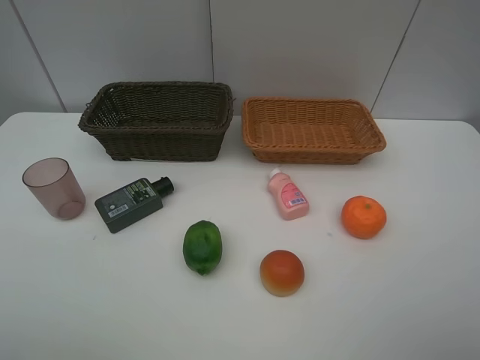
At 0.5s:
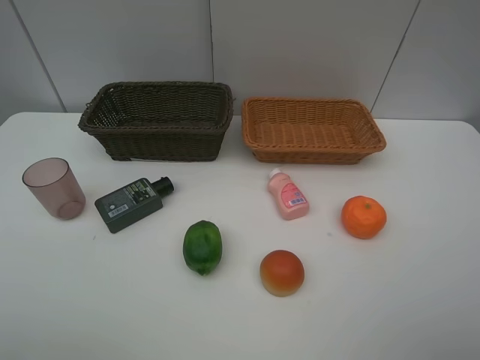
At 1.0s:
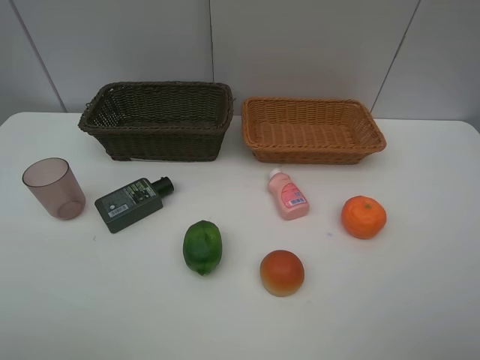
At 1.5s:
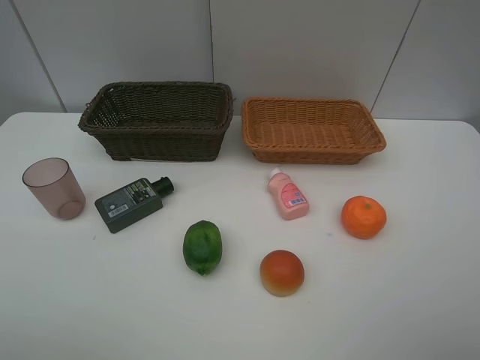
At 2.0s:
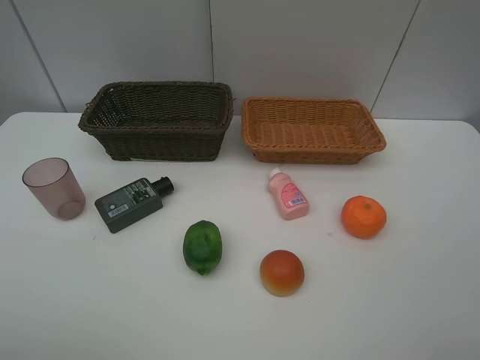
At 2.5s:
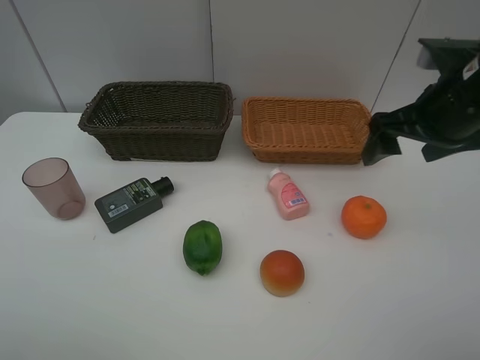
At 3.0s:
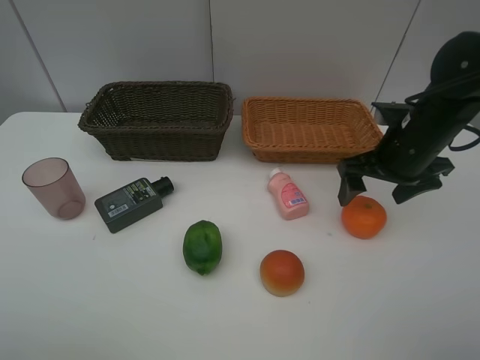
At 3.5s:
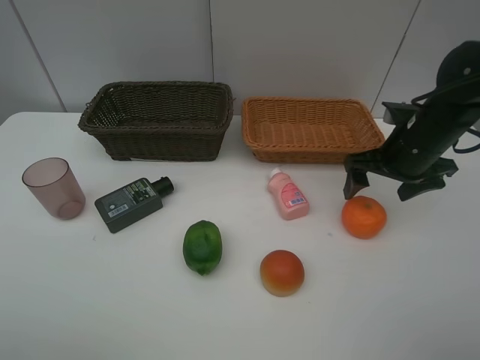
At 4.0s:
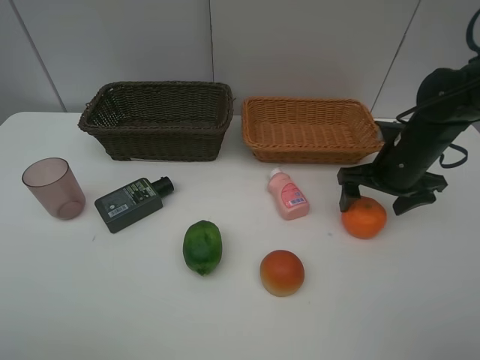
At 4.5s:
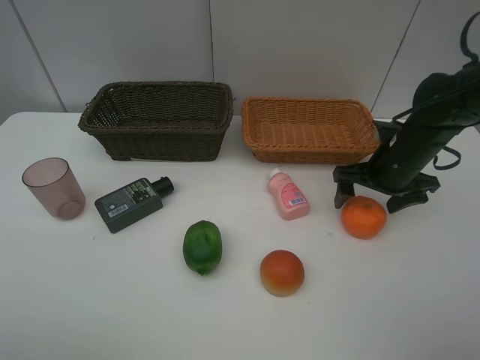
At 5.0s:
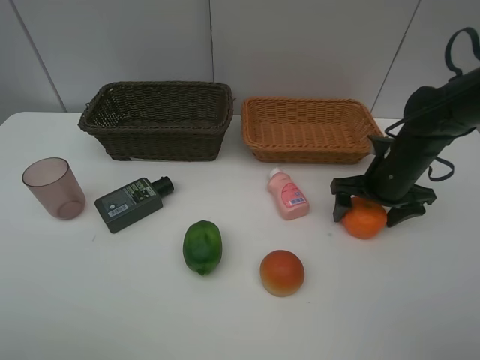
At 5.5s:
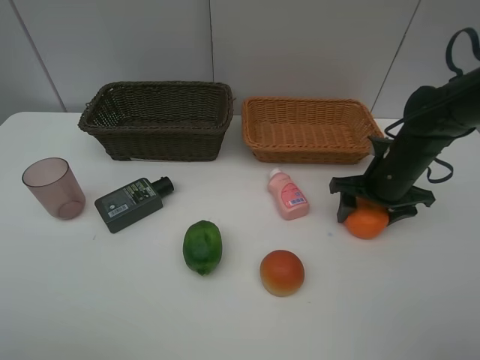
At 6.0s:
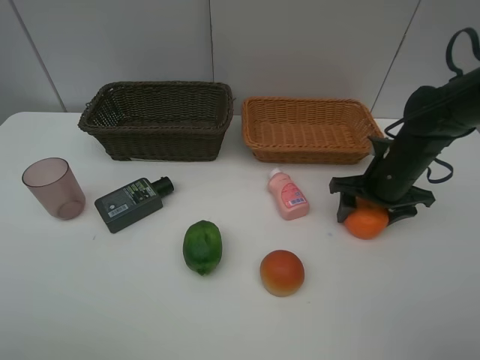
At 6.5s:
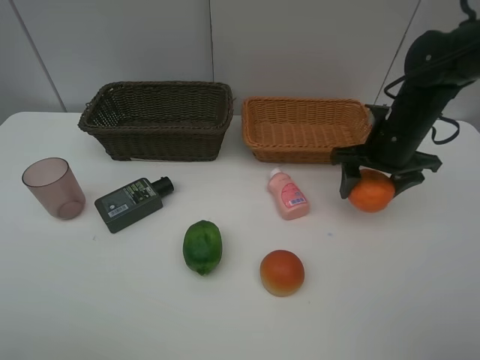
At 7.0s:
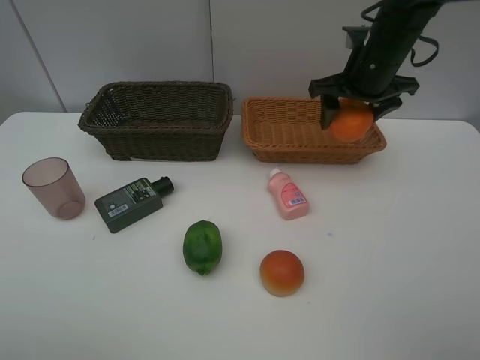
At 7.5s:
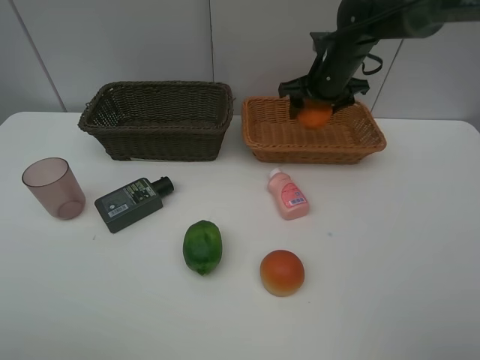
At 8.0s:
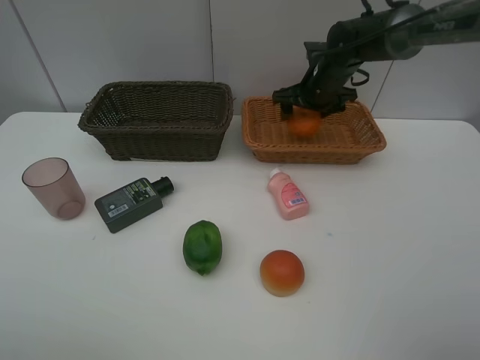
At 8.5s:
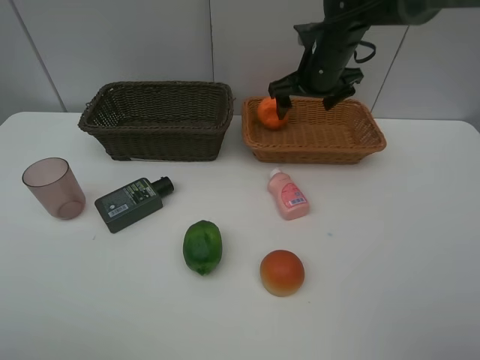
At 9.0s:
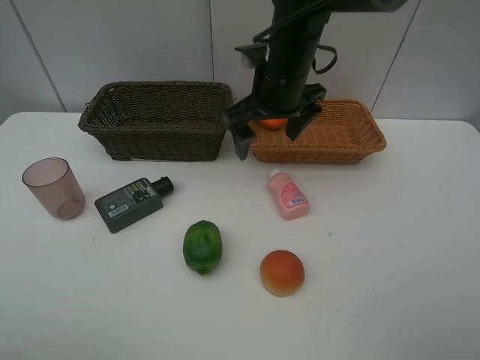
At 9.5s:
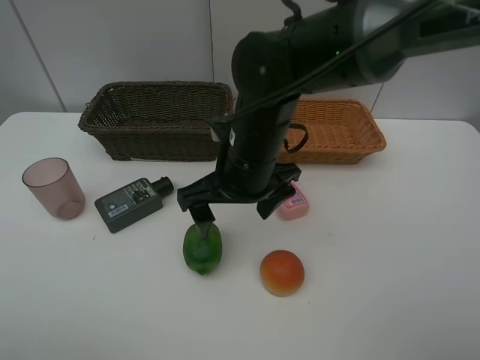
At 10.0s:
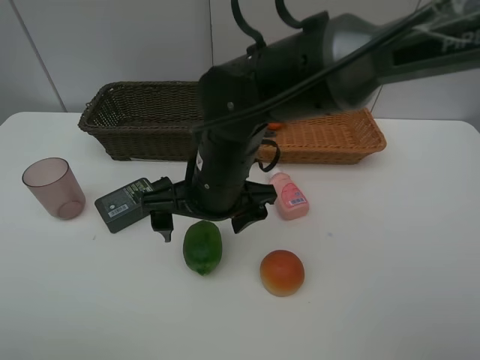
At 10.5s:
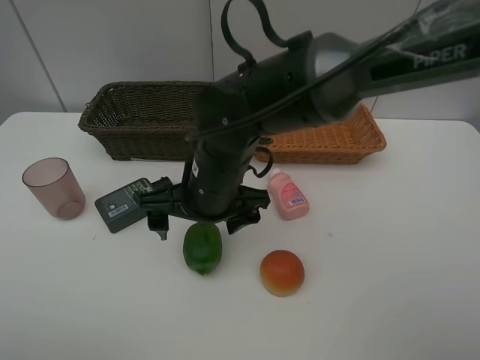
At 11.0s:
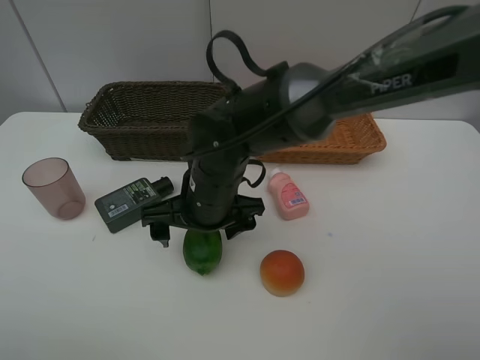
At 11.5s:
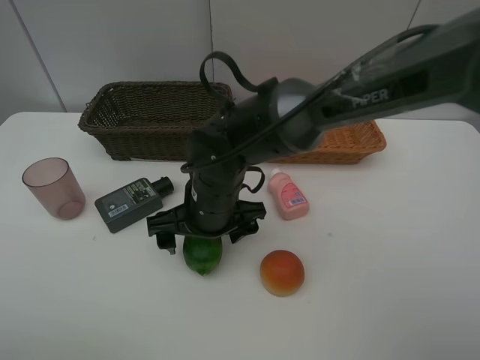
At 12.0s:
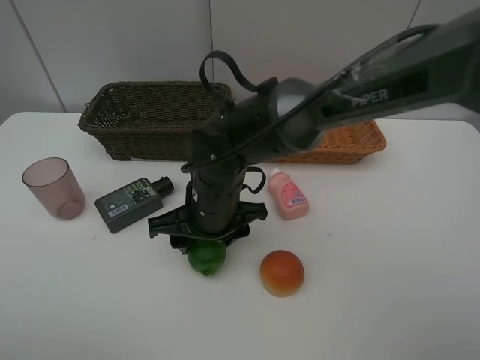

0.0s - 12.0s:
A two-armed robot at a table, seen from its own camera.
Task of the whole recording: place multiple objects separately in different baskets.
2.0s - 4.0s: The right gripper travels downward and forward by about 25 cm.
4.0s - 6.0s: The right gripper closes its fingers.
6.0s - 8.0s: The right gripper travels forward and to the left by roughly 20 cm.
8.0s - 10.0s: The right gripper travels backward and to the left by roughly 30 cm.
10.0s - 12.0s: The right gripper shifts some 5 cm downward, and closes.

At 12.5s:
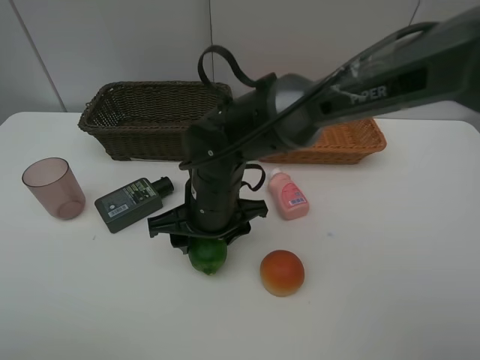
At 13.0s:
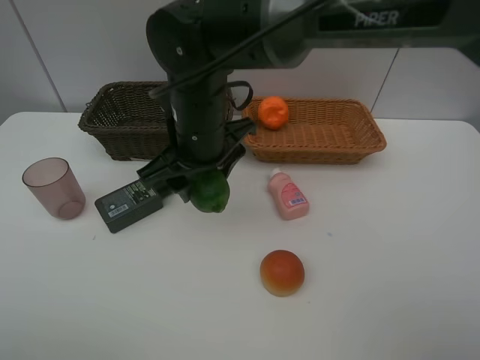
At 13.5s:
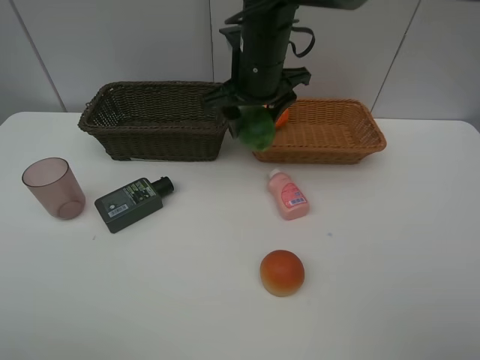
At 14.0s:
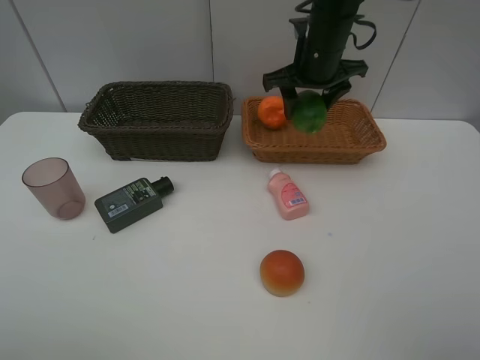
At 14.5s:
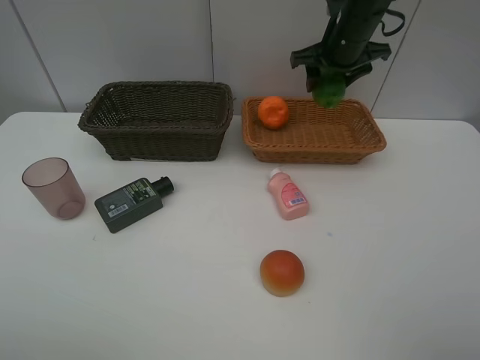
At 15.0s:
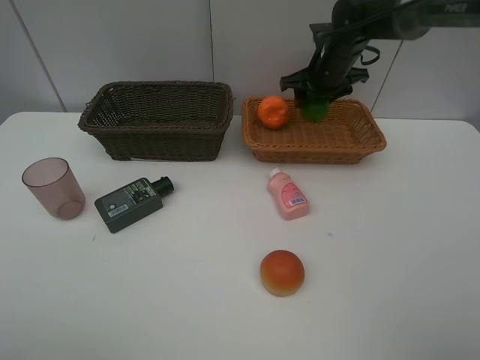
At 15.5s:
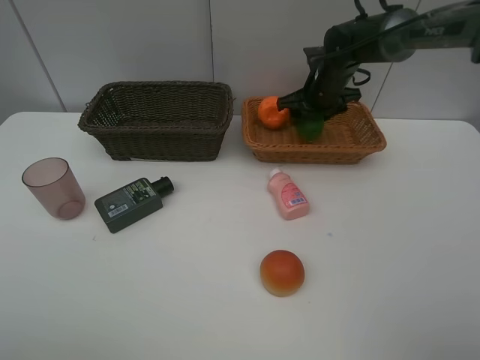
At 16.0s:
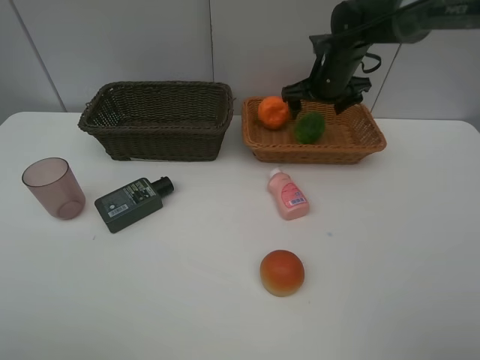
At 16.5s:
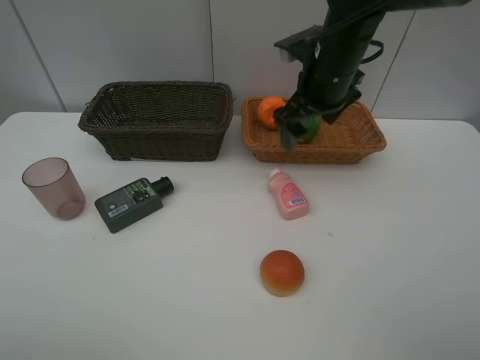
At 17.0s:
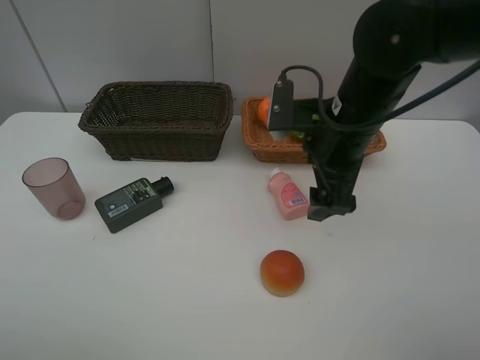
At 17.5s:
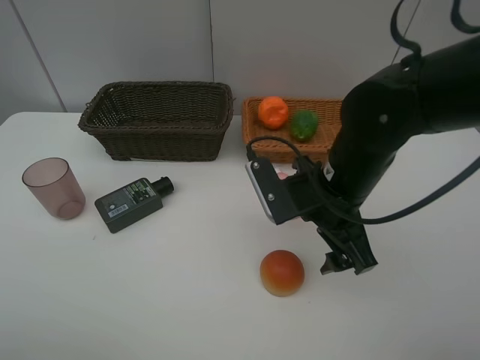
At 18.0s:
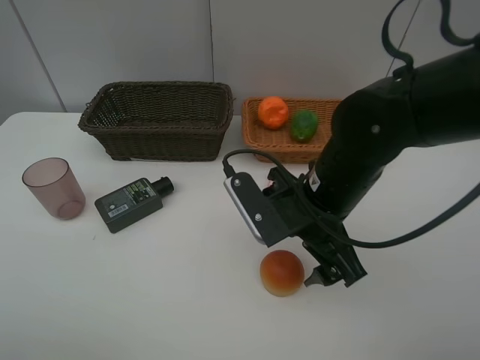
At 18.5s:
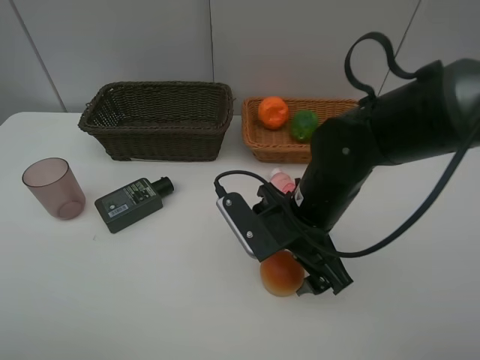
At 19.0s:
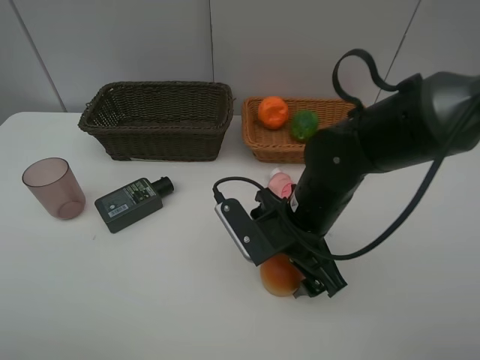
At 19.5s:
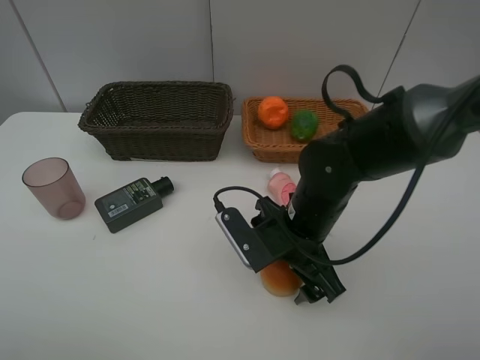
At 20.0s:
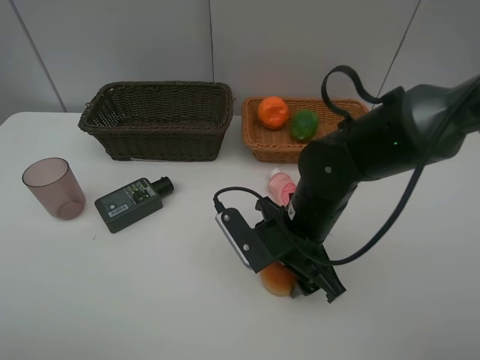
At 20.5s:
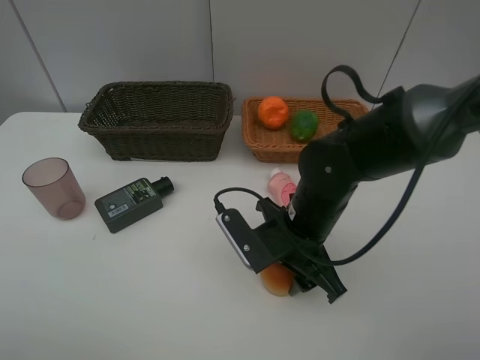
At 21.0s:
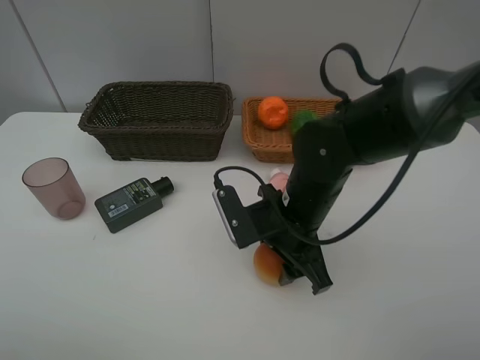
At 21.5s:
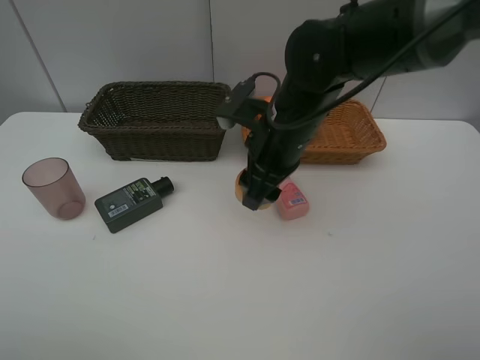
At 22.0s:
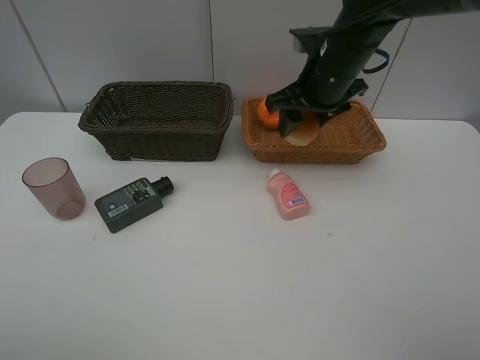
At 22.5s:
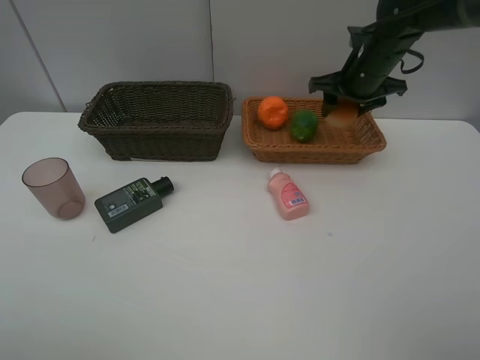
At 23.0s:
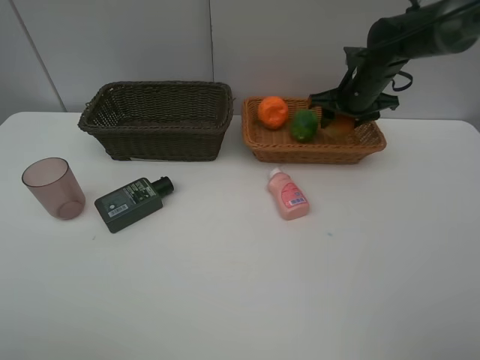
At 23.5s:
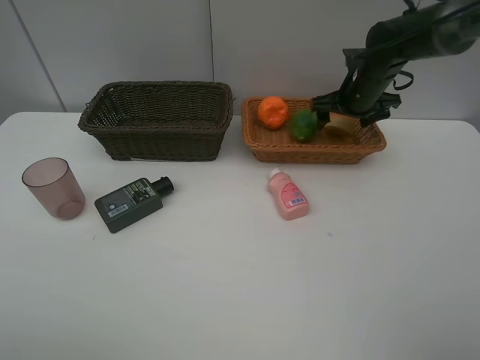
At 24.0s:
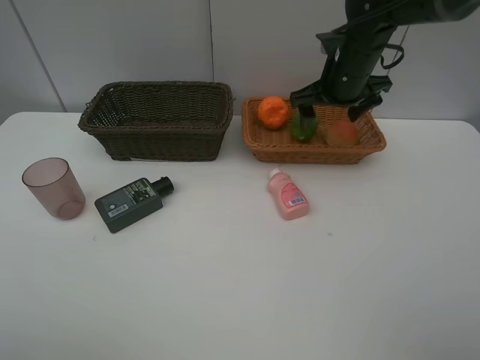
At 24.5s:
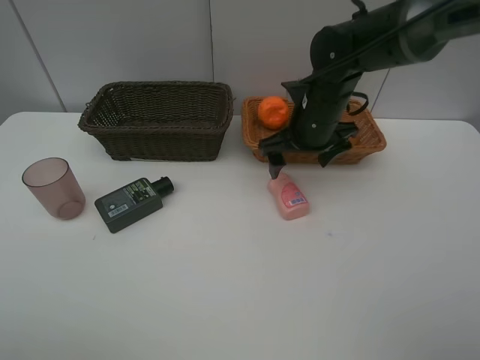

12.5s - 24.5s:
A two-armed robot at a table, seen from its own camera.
Task of the whole recording: place multiple objects separately in different baskets.
12.5s - 14.5s: The right gripper heads forward, to the right and upward, covering about 30 cm.
14.5s - 16.5s: The right gripper moves backward, roughly 10 cm, and opens up.
16.5s - 18.5s: The right gripper is displaced backward and downward by approximately 15 cm.
18.5s - 20.5s: The right gripper closes up.
20.5s - 22.5s: The right gripper goes about 25 cm forward, to the right and upward.
22.5s - 24.5s: The right gripper is displaced to the left and backward by about 10 cm, and opens its fingers.

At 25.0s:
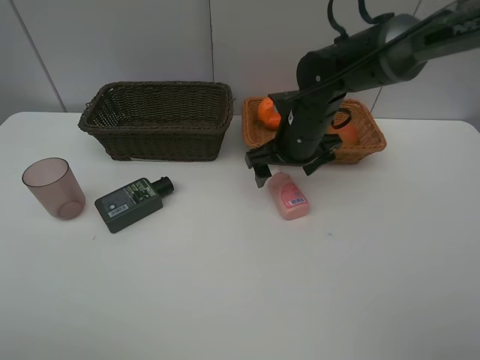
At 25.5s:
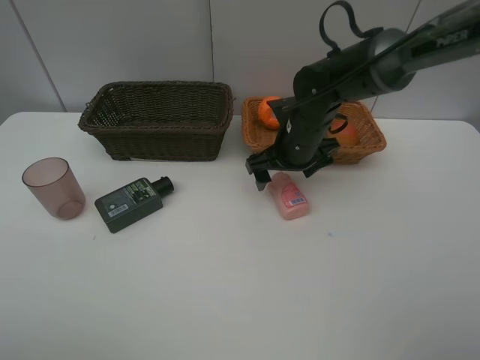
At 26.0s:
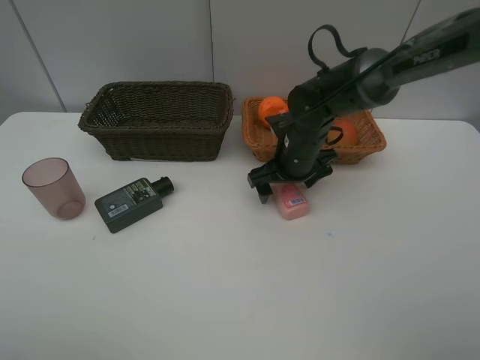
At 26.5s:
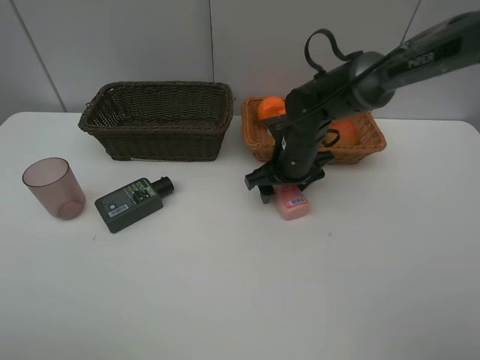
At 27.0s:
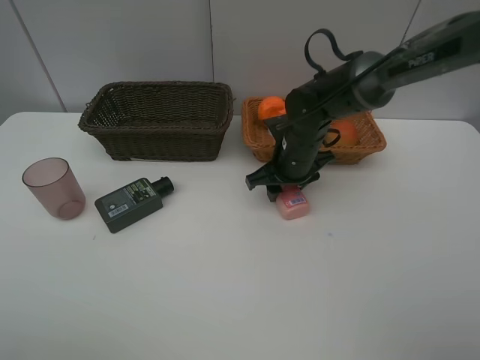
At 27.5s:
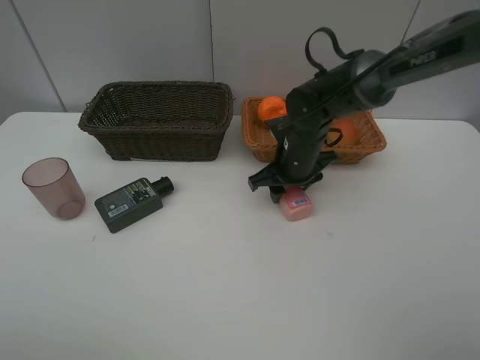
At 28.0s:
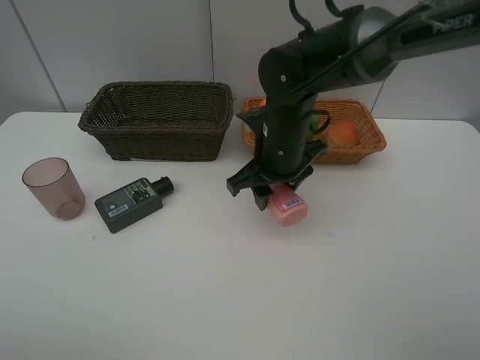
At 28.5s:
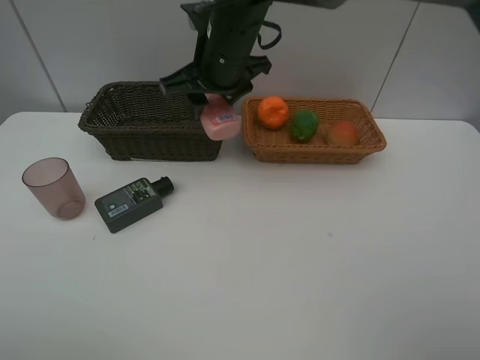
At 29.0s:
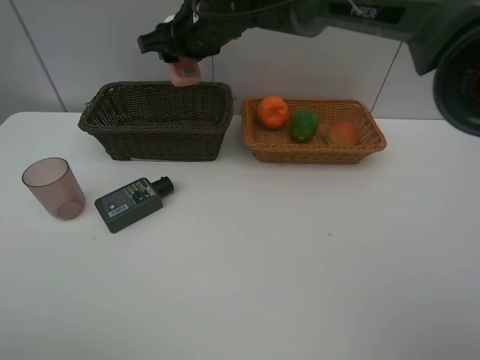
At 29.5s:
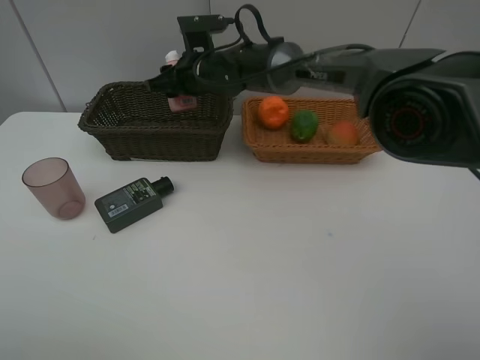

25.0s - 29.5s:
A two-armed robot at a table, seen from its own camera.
Task of the whole recording: place multiple objects separately in different baskets.
25.0s - 27.0s: The right gripper closes its fingers.
27.0s - 29.5s: The right gripper is displaced to the left, forward and upward by some 20 cm.
